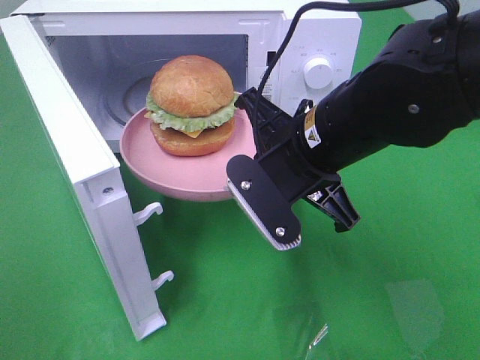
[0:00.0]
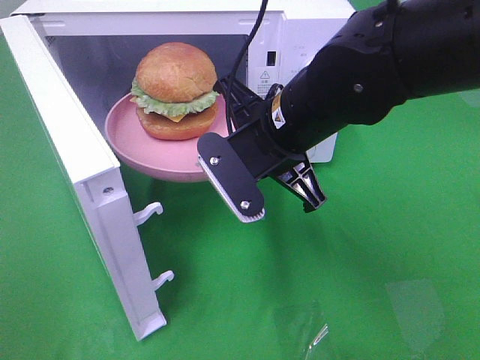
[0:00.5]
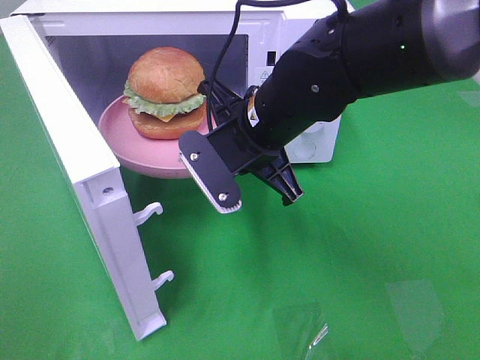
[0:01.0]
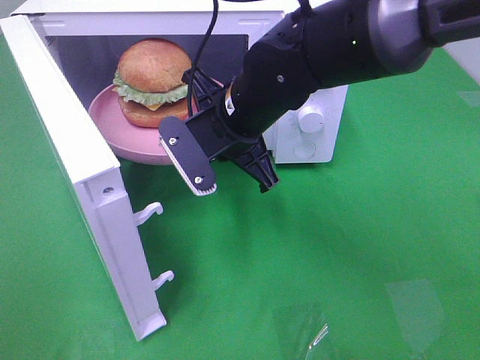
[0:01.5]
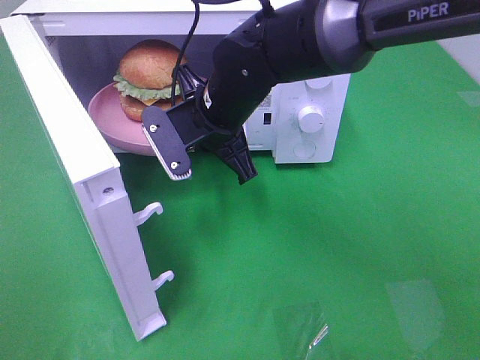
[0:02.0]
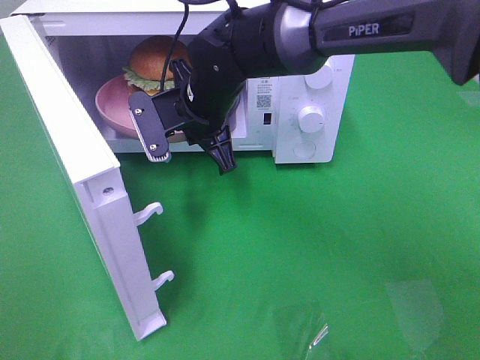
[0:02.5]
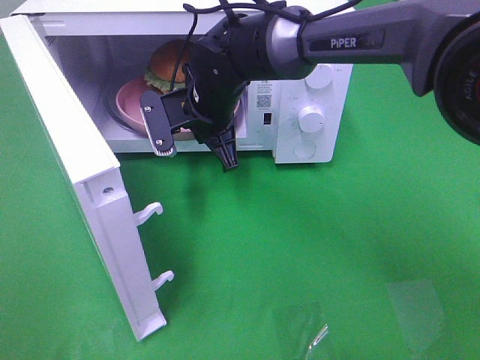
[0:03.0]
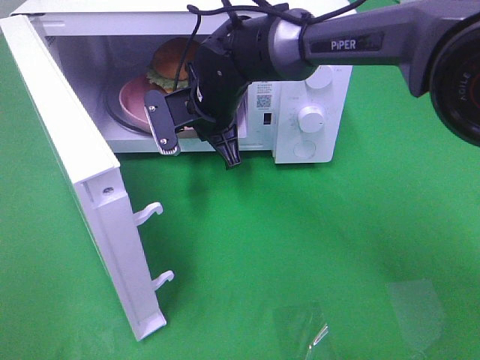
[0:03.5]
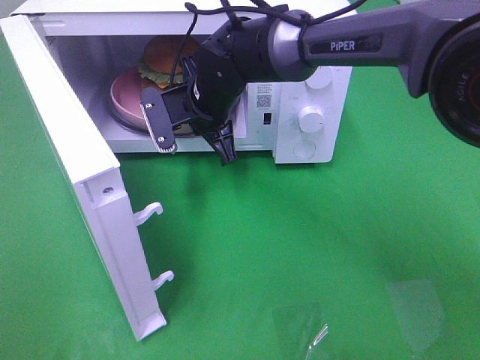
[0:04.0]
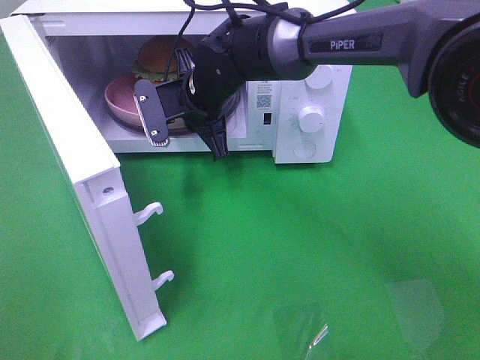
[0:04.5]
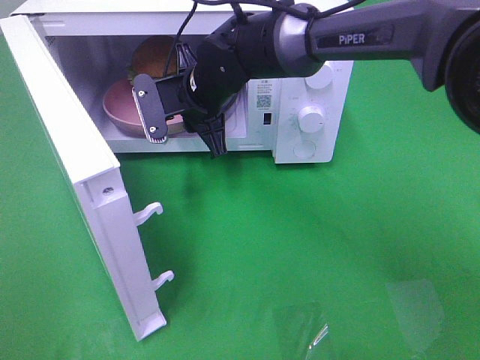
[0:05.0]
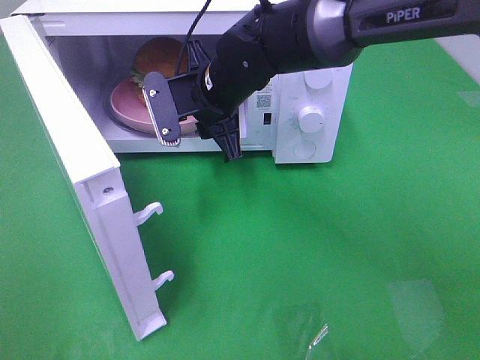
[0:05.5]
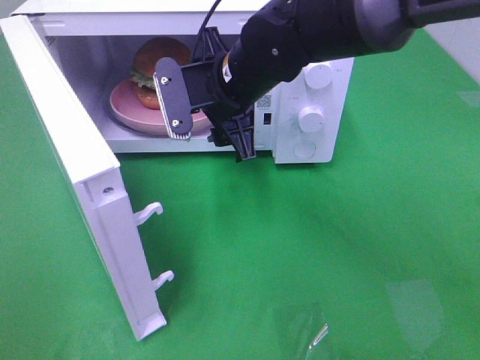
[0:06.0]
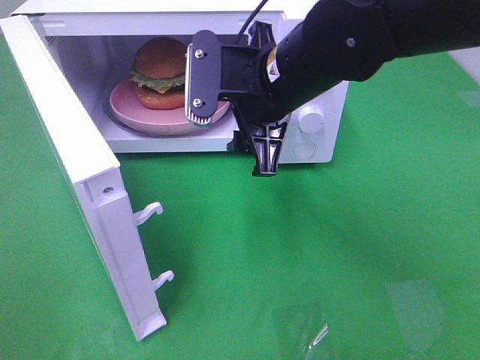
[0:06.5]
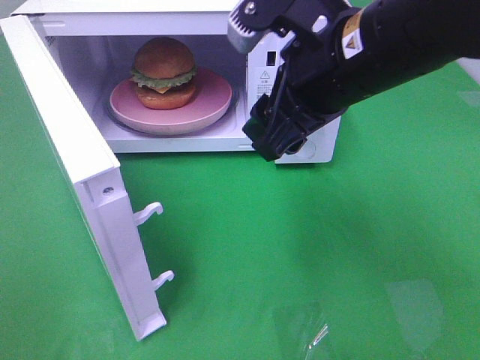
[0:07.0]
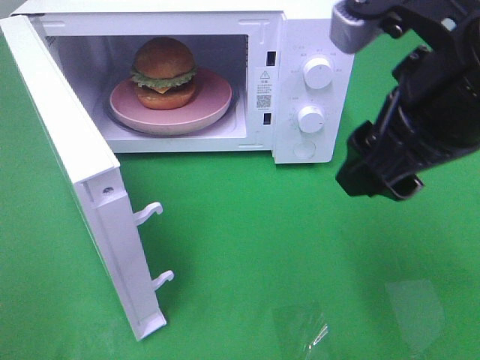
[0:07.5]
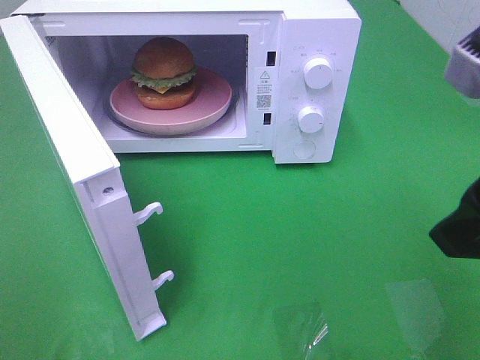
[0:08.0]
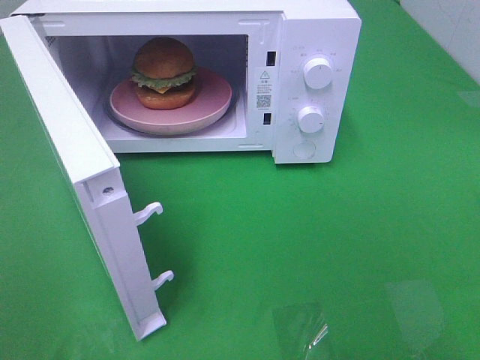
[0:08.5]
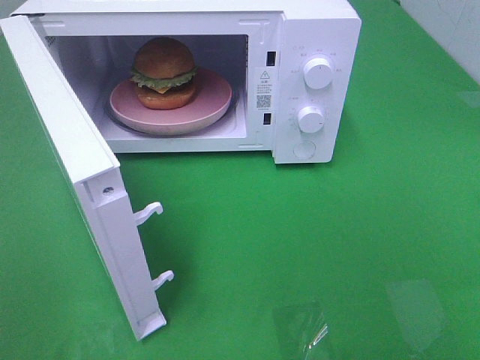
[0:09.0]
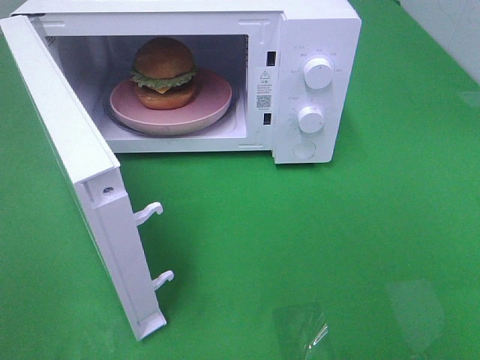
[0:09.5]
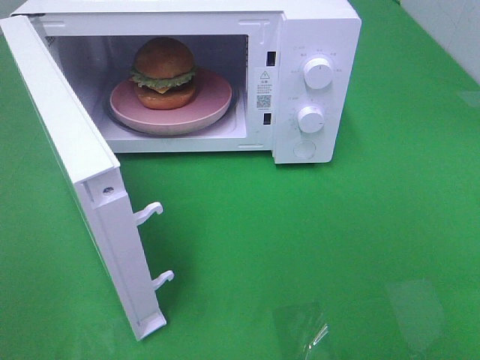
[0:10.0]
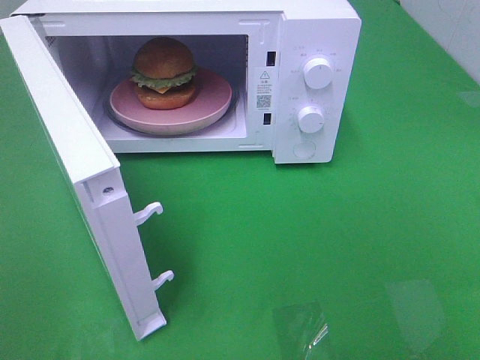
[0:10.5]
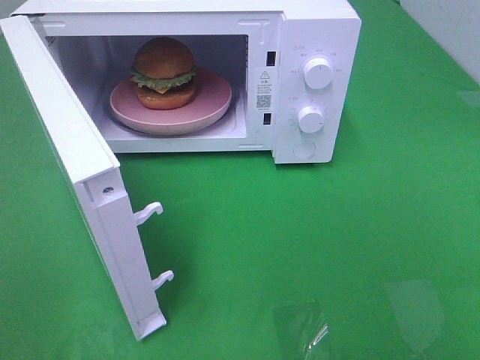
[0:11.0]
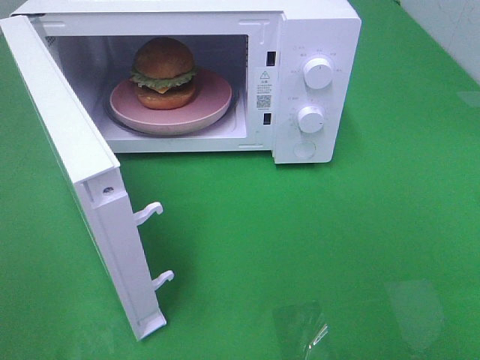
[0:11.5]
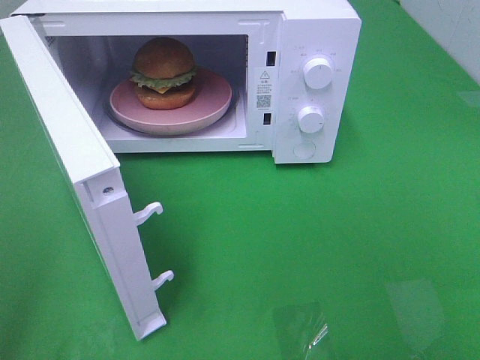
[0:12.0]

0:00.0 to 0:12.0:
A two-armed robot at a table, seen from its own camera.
Task of the whole recording: Heat the burger.
Step, 0:00.0 to 0:04.5: Right hand: place the plate in the microwave.
0:00.0 to 0:02.0: The right gripper travels forward and to the left by roughly 15 cm.
0:02.0 to 0:04.0: The right gripper goes about 5 cm forward.
0:04.0 to 0:06.0: The right gripper moves backward and upward, approximately 10 cm, and opens.
0:06.0 to 0:08.0: The right gripper goes about 30 cm backward, to the right and upward.
0:08.0 to 0:10.0: The right gripper goes approximately 15 cm backward and to the right.

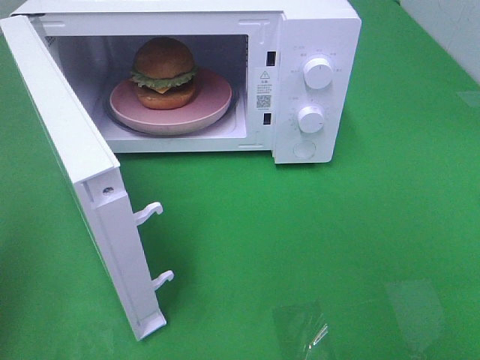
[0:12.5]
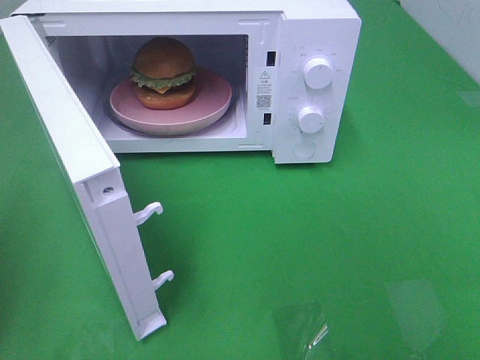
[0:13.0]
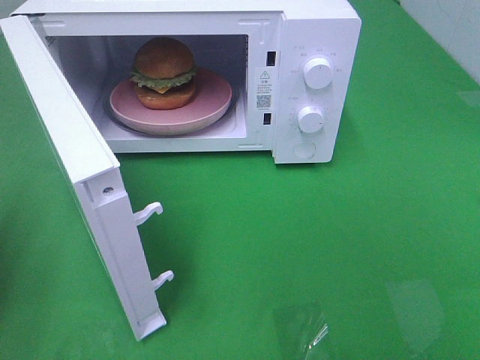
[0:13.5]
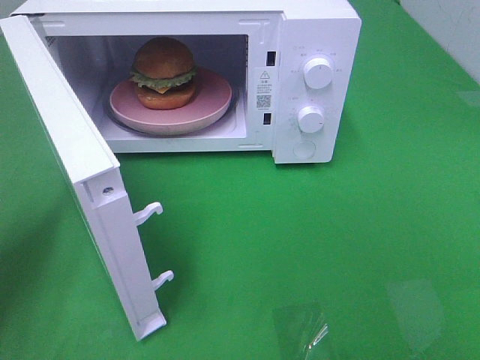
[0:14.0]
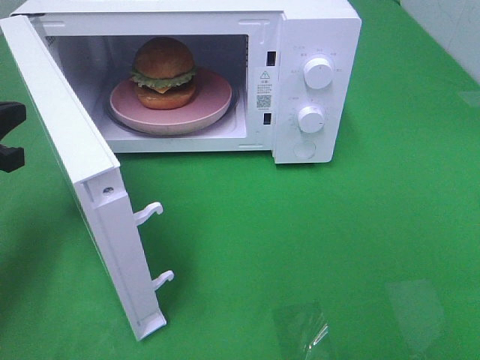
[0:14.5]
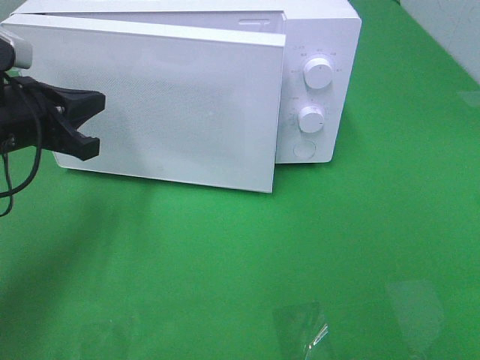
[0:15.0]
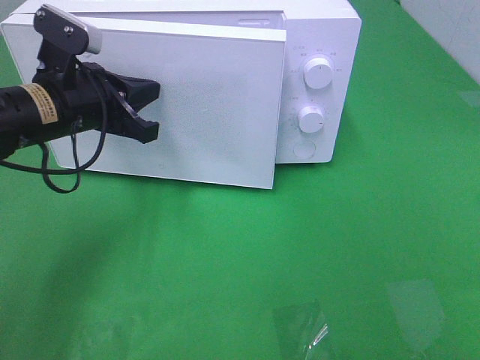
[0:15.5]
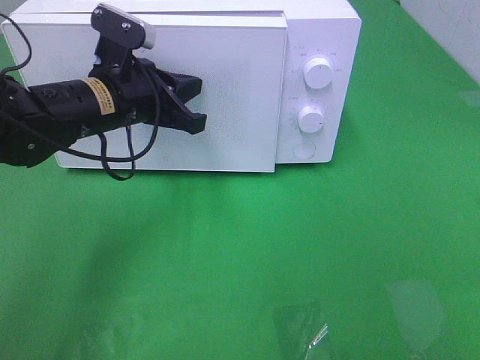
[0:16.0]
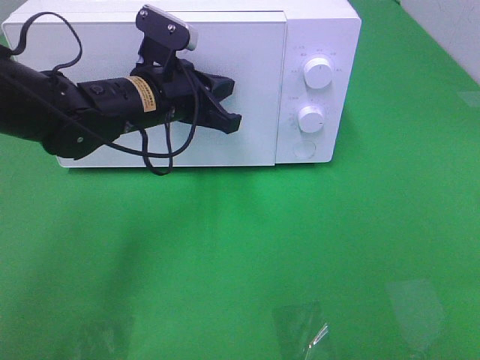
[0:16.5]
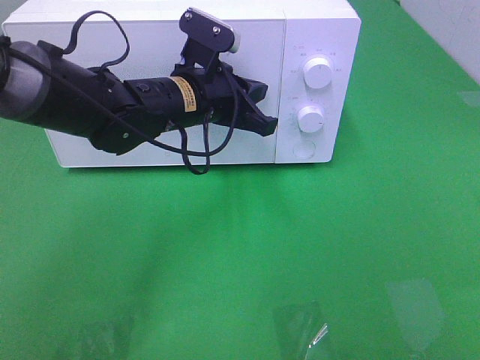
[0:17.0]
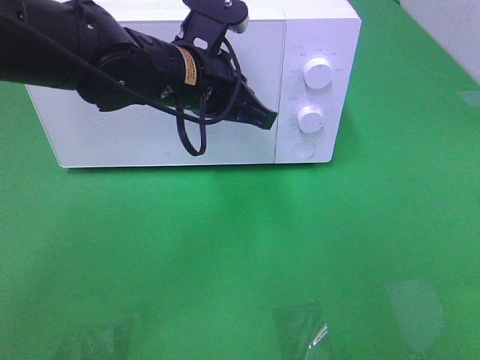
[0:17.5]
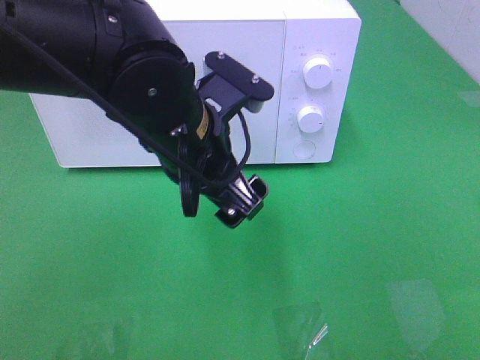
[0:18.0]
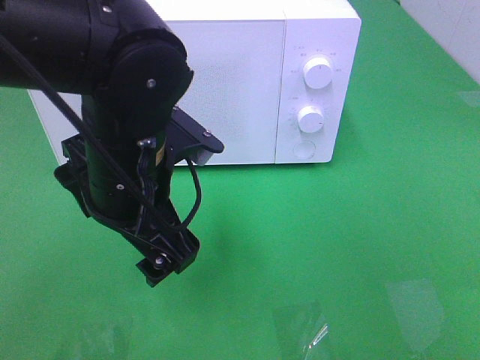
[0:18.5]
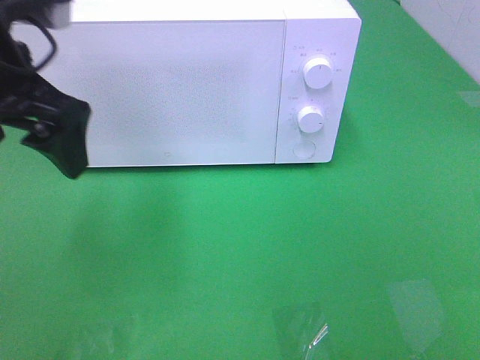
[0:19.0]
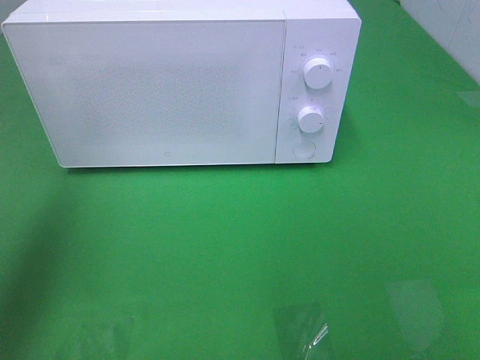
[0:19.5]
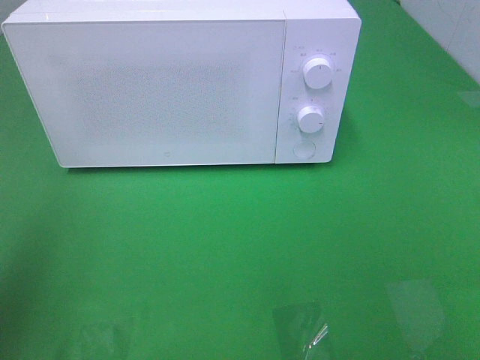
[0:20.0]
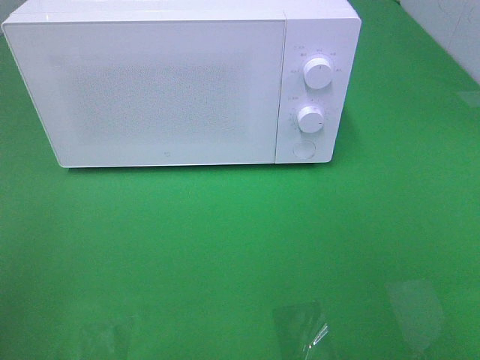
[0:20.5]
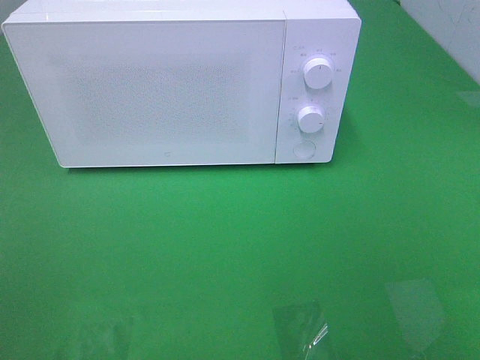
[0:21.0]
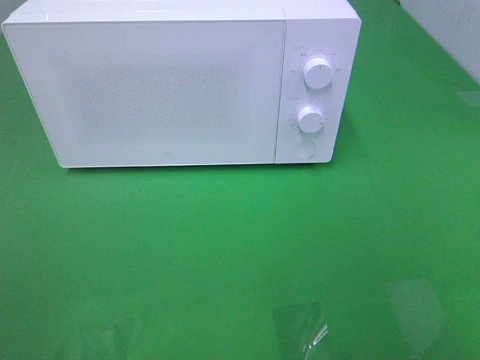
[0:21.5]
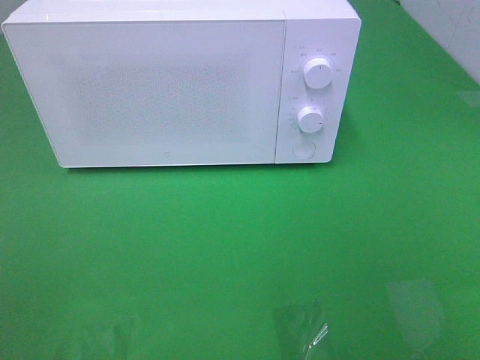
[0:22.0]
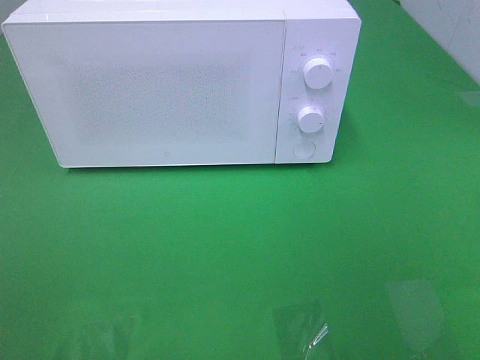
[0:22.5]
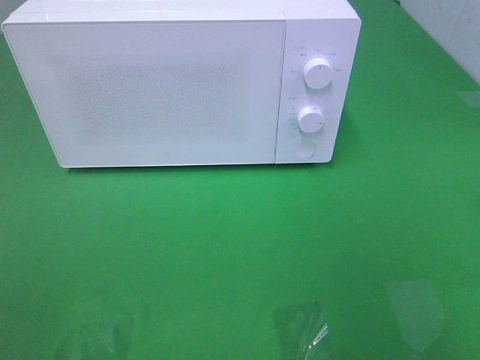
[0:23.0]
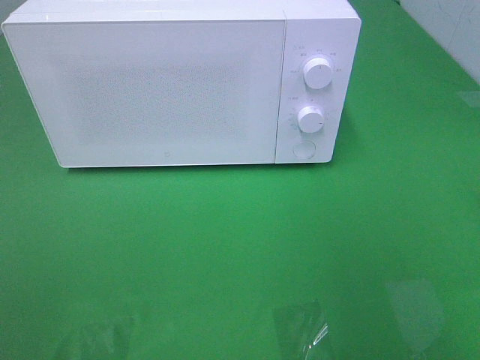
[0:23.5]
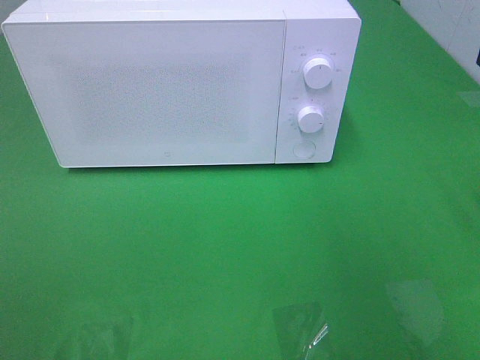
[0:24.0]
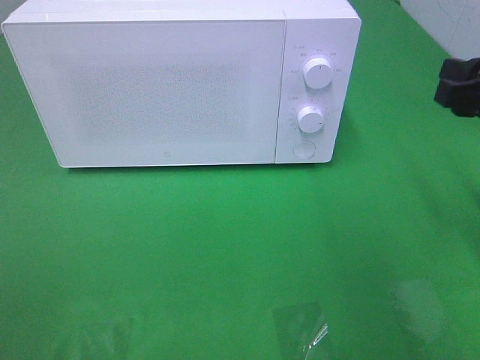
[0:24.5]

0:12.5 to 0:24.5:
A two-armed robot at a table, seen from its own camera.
Task of the whole recording: Heat the burger.
Step, 0:12.5 to 0:17.0: Left hand: close the microwave door.
0:12.5 to 0:14.5: The left gripper shifts approximately 20 cm forward and downward.
0:14.5 to 0:16.5: The left gripper shifts roughly 25 cm to the right and forward.
0:16.5 to 0:18.5: The left gripper travels backward by roughly 15 cm, and opens.
0:18.5 to 0:20.5: The left gripper moves to the left and backward, about 30 cm.
0:22.5 to 0:24.5: The right gripper heads forward, covering some 20 cm.

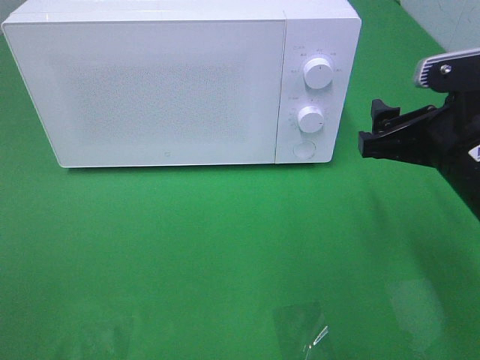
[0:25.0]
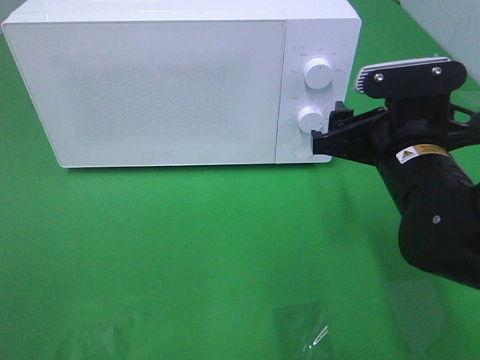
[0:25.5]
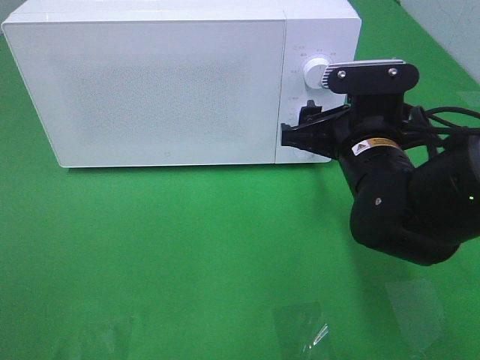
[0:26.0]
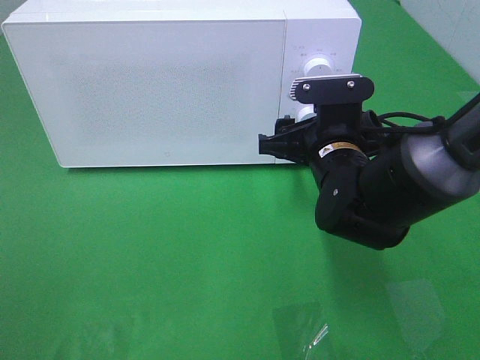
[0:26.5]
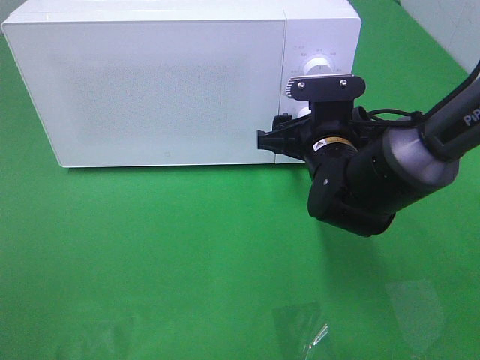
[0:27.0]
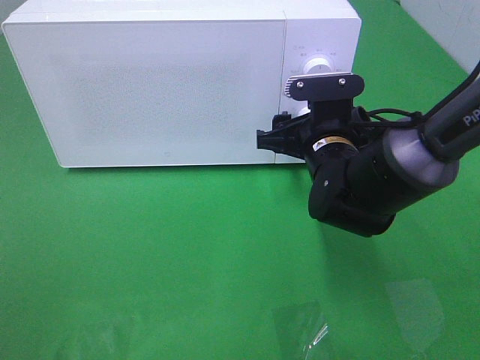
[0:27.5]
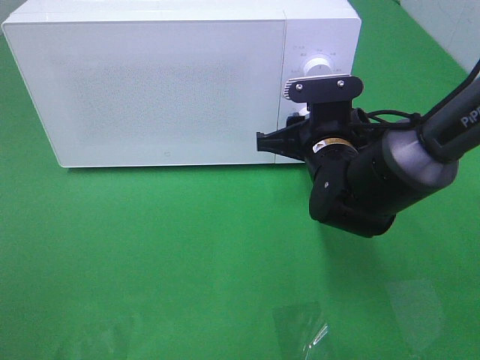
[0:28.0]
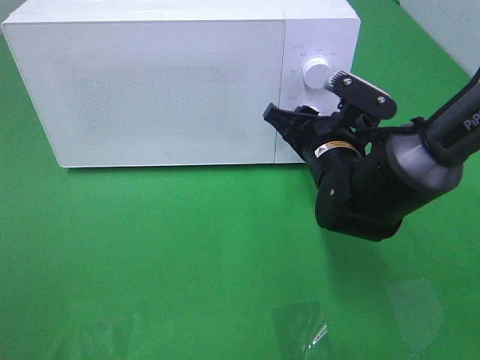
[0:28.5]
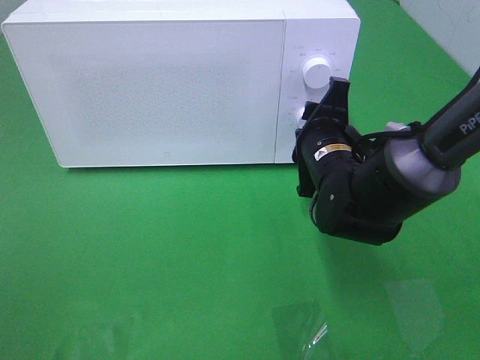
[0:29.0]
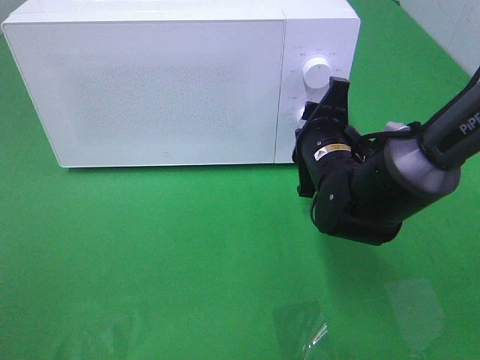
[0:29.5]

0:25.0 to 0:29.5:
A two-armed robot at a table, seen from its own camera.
Task of the whole recording: Heat the burger.
0:25.0 to 0:27.0: The right gripper is displaced forward, to the left and downward by about 15 cm.
